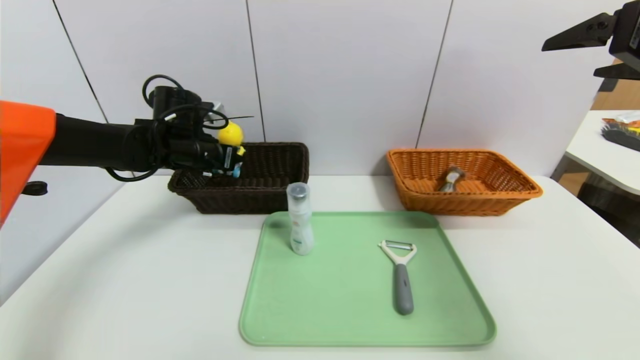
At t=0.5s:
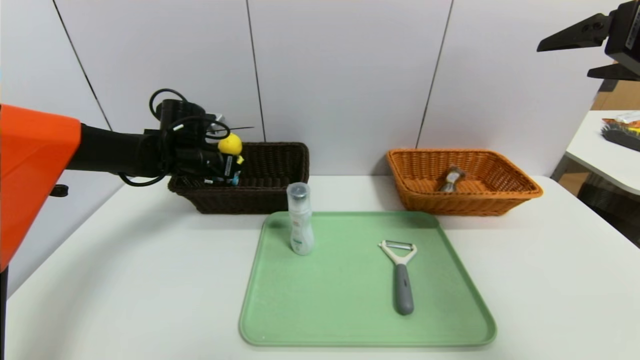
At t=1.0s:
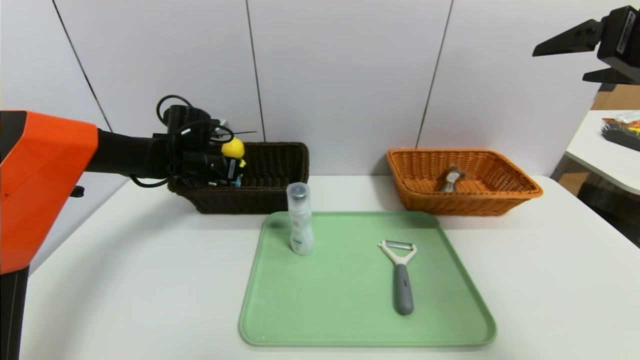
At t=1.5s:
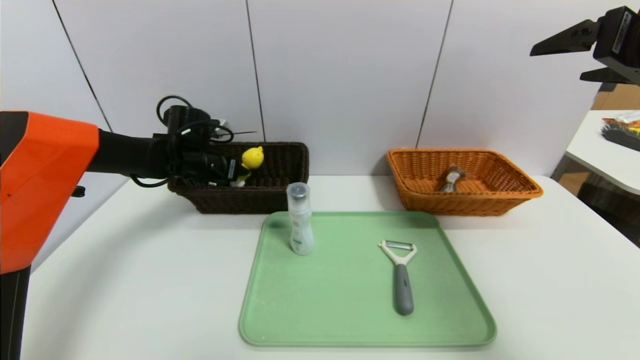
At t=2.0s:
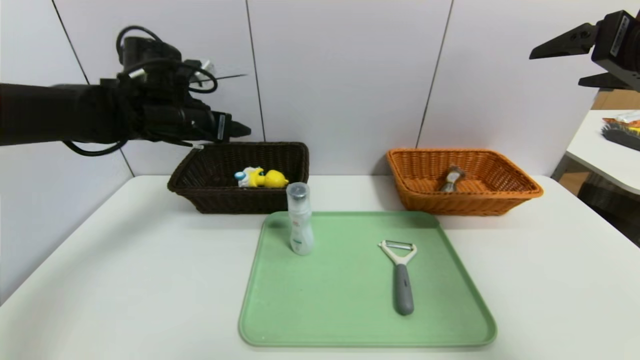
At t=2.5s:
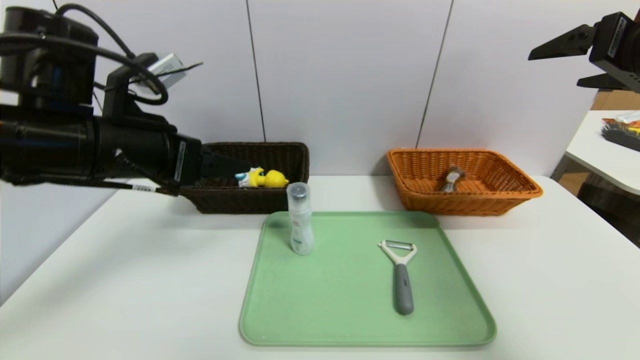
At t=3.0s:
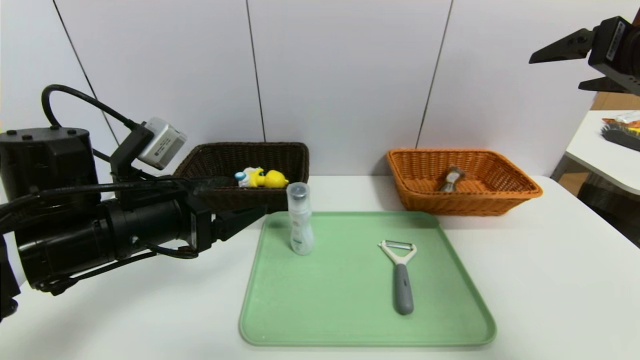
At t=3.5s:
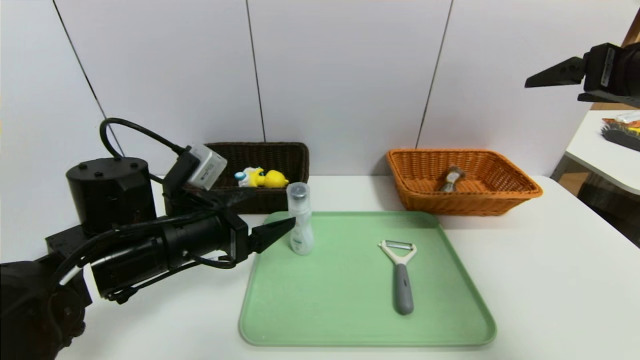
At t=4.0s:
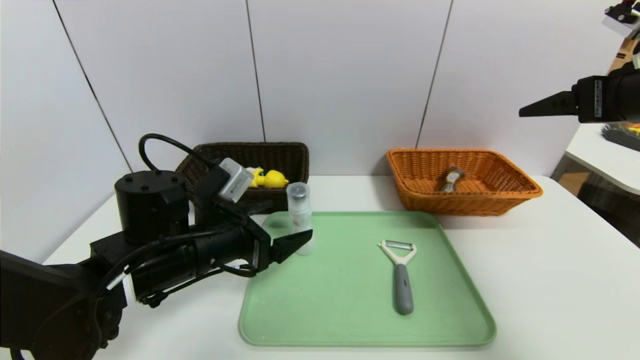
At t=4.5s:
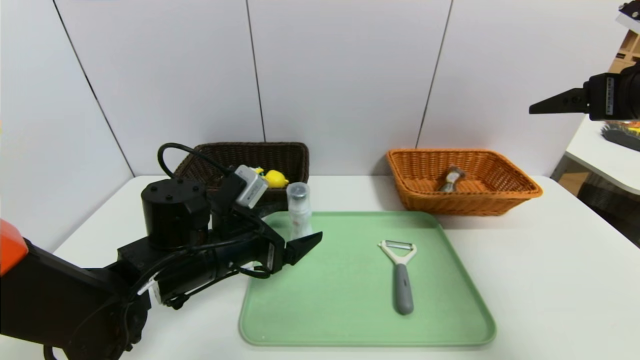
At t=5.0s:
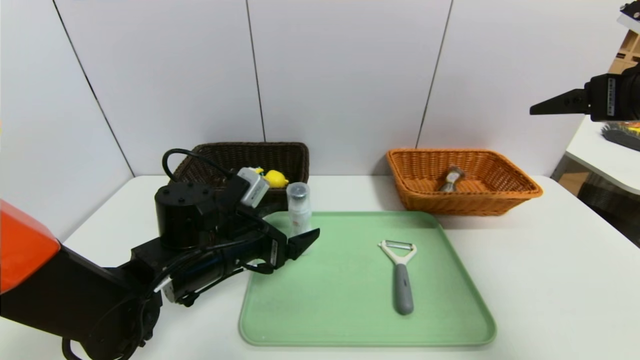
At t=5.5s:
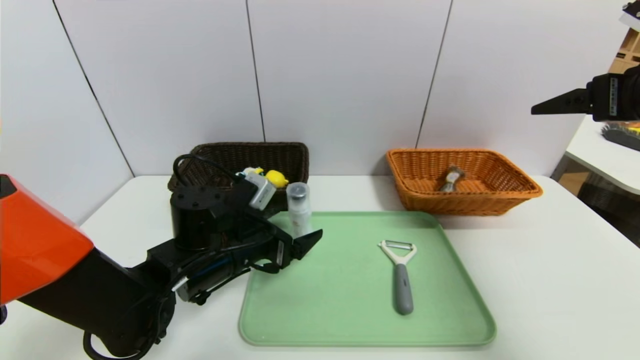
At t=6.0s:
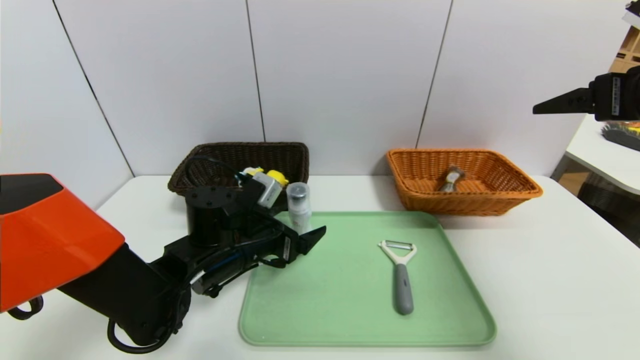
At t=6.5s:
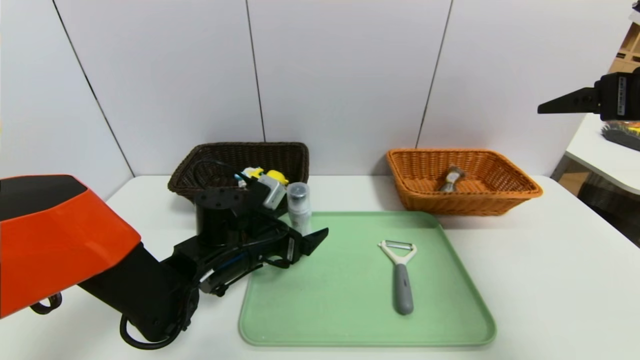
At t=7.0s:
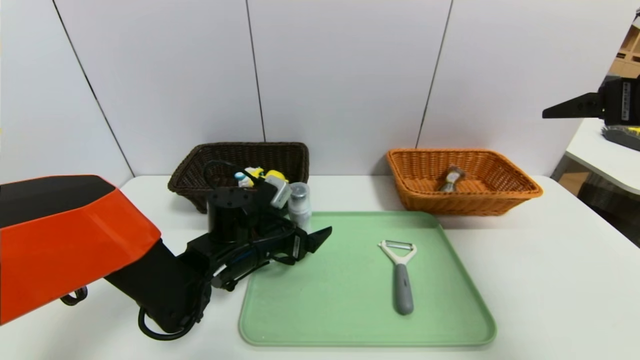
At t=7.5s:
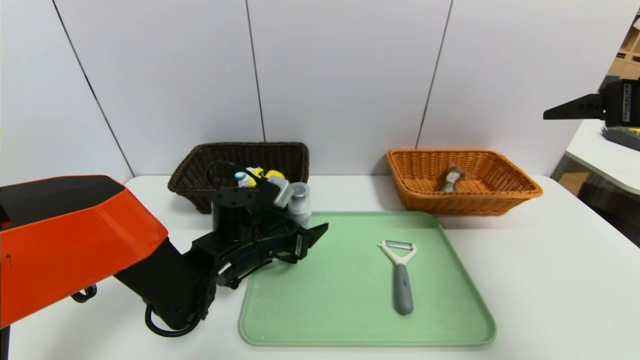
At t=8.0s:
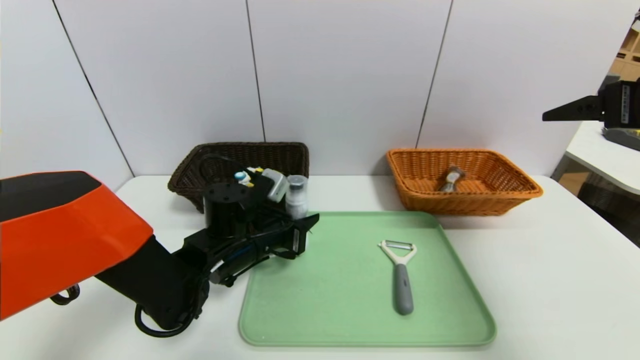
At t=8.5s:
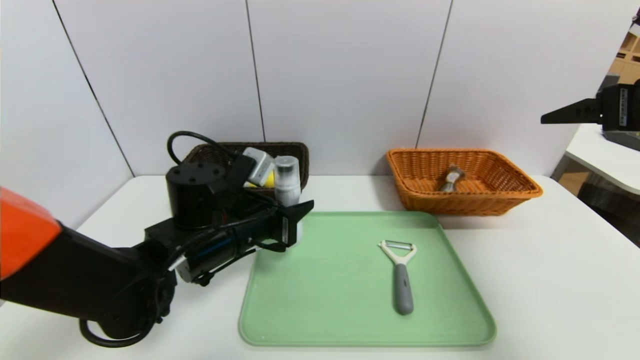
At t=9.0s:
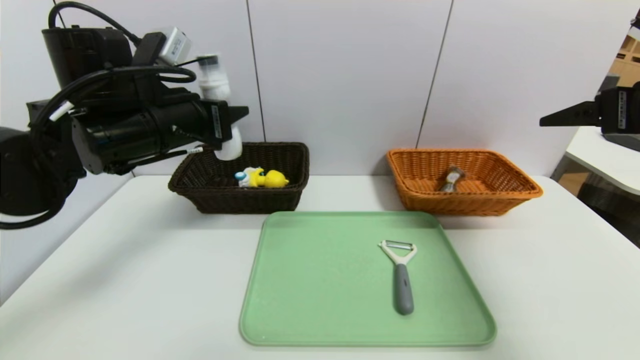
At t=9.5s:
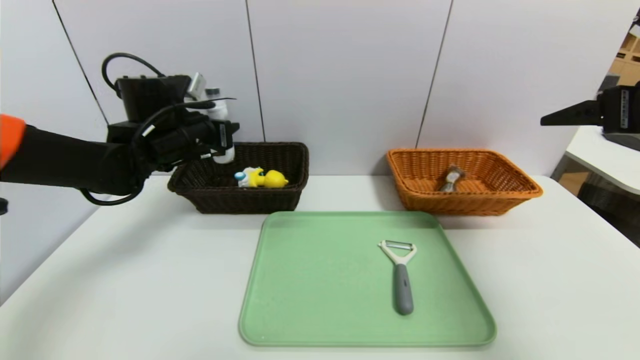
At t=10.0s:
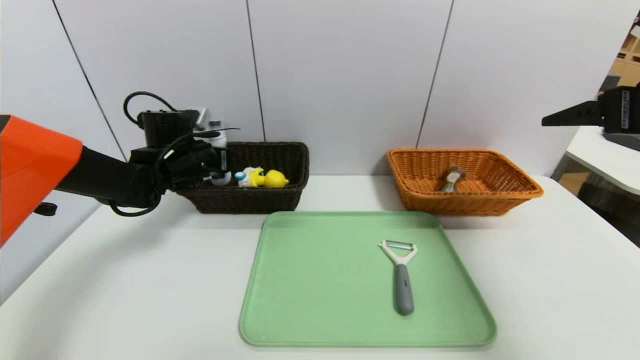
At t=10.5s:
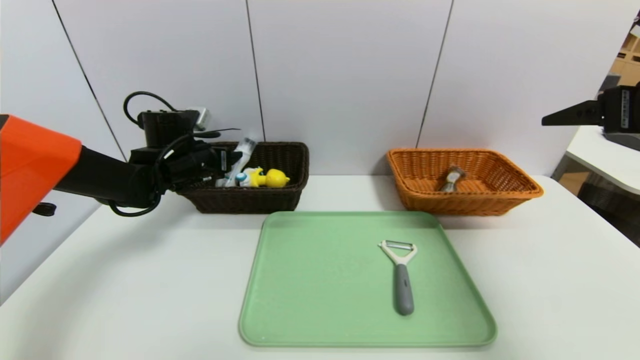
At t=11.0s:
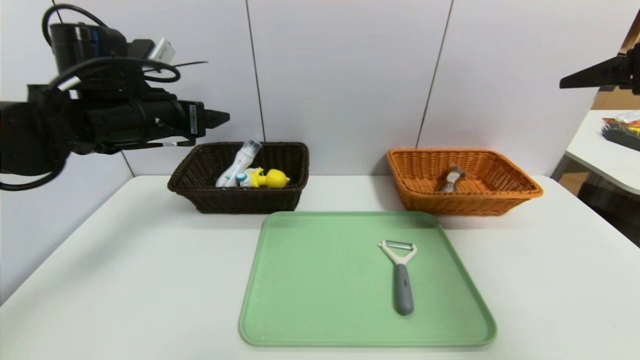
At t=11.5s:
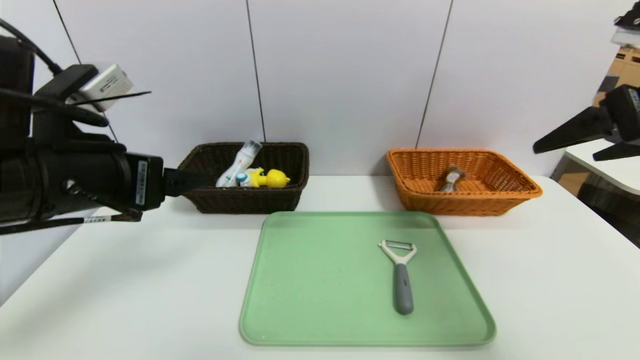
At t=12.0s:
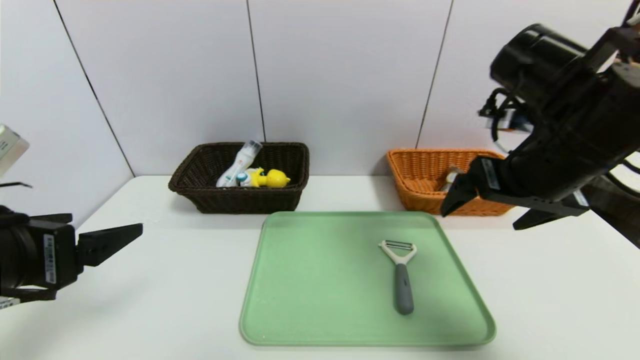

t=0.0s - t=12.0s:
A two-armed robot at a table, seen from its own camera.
Task of the whole recording: place the food in the right basket with the right gripper, and place the non food items in the left basket with the left gripper.
Step, t=2.0s - t=10.5s: Grasp the cleaning agent and put it in the left basket.
t=0.0s - t=2.0s: The left gripper heads upward, covering approximately 10 cm, and opens up.
t=2.0s - t=4.0s: The left gripper shifts about 20 cm backward, downward and to the right.
t=4.0s - t=6.0s: The left gripper ends up some 5 cm from where it was.
t=6.0s - t=8.0s: The left gripper closes.
t=8.0s - t=10.0s: The left gripper moves to the left and forward, some 20 cm, and reaches roughly 20 cm upward, then returns.
t=10.0s - t=12.0s: The right gripper is displaced to the left by some 15 cm. Meanwhile the left gripper goes some 30 cm backward, and opens.

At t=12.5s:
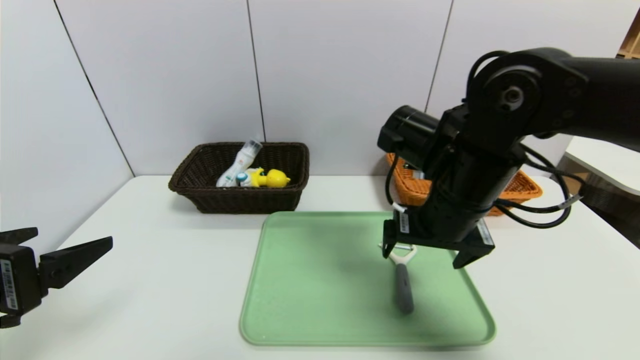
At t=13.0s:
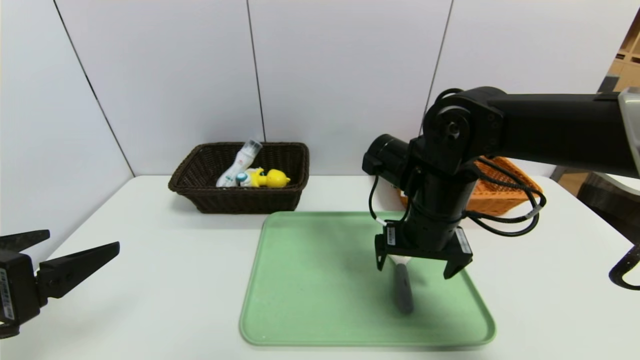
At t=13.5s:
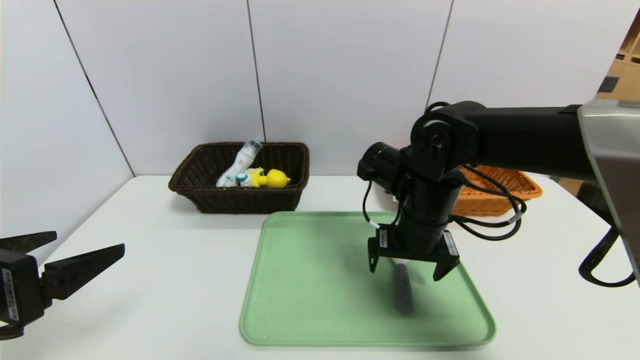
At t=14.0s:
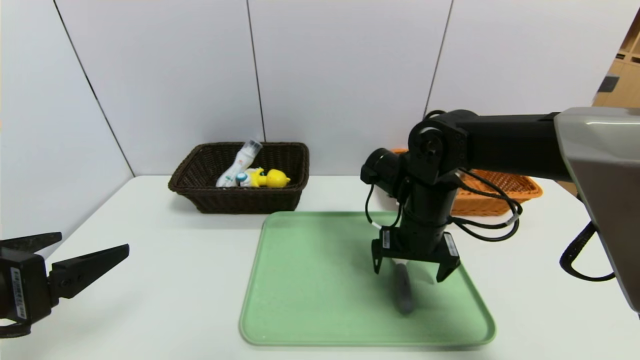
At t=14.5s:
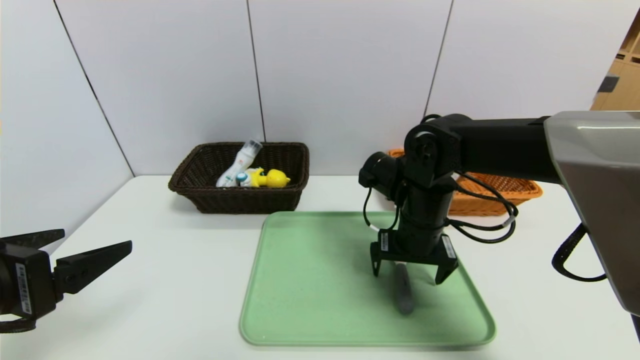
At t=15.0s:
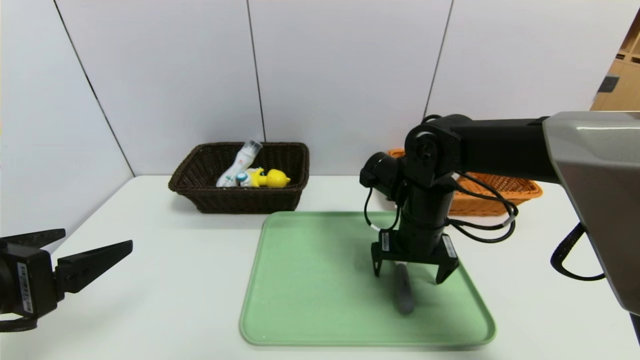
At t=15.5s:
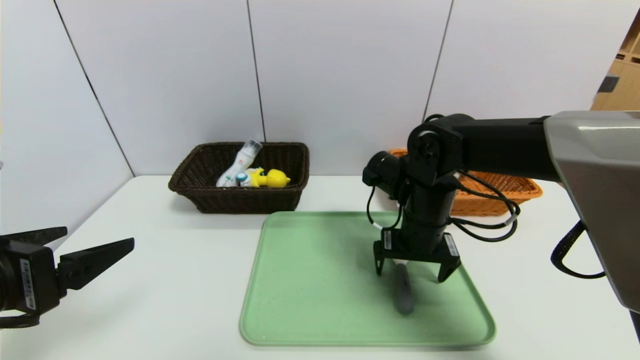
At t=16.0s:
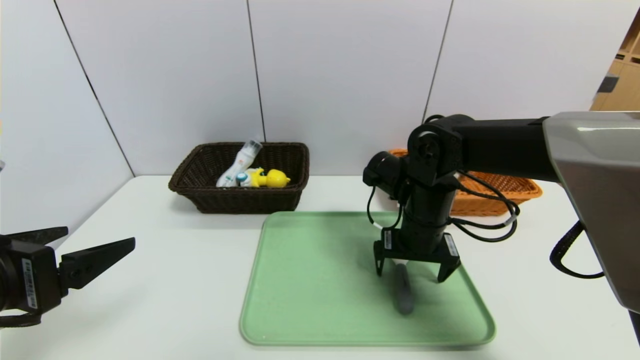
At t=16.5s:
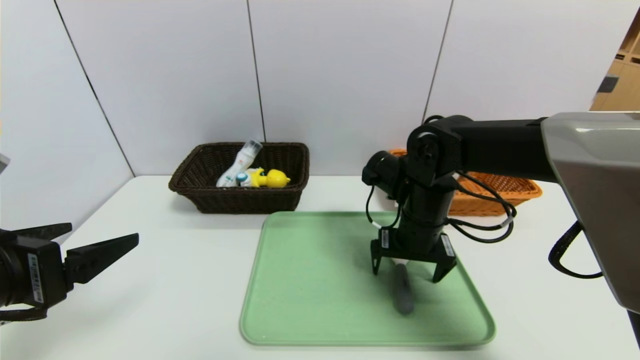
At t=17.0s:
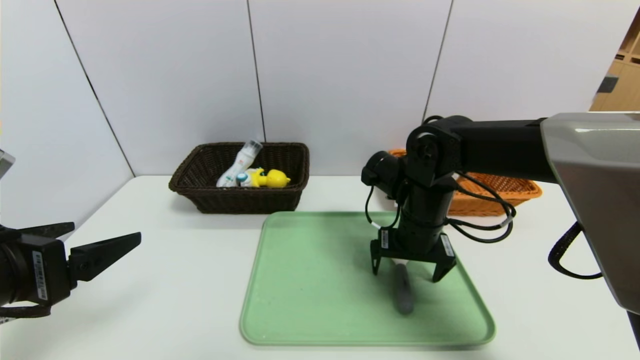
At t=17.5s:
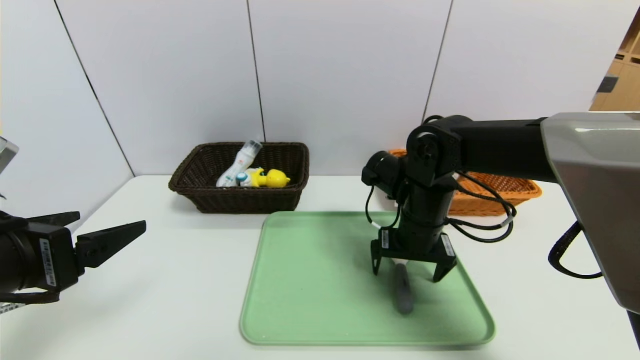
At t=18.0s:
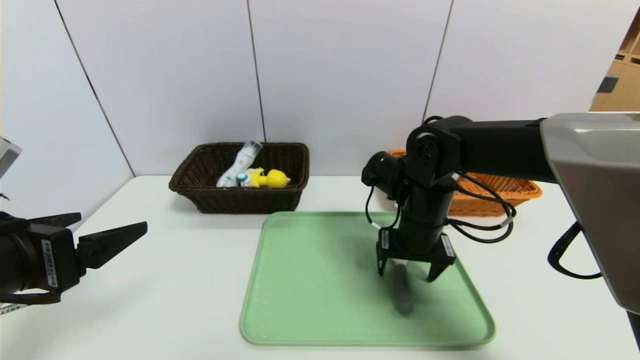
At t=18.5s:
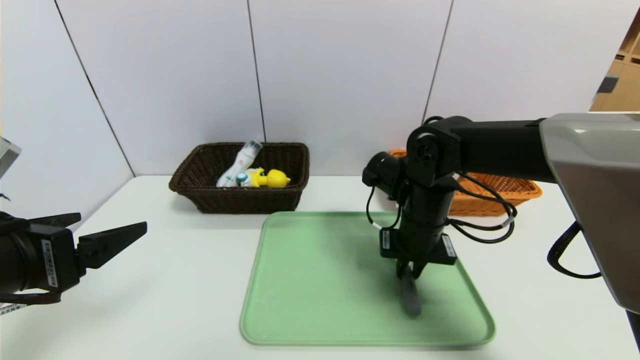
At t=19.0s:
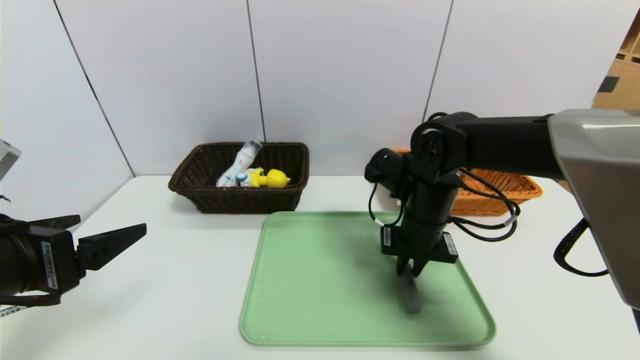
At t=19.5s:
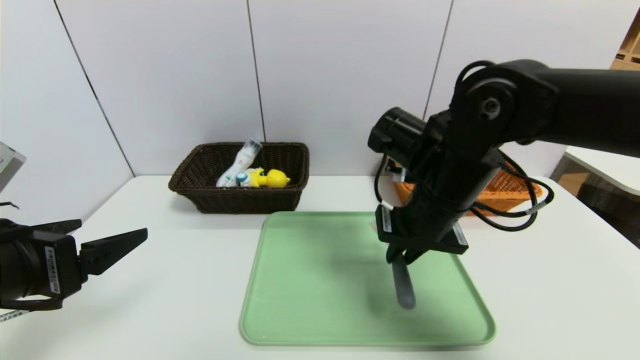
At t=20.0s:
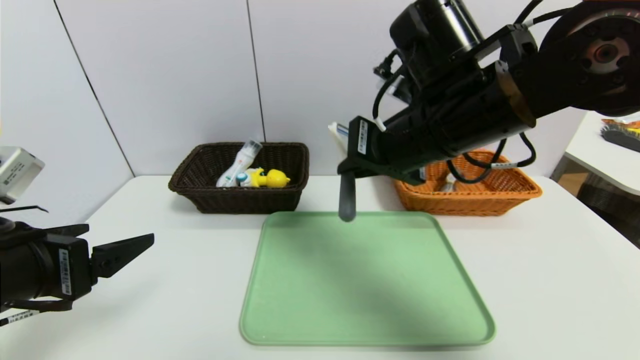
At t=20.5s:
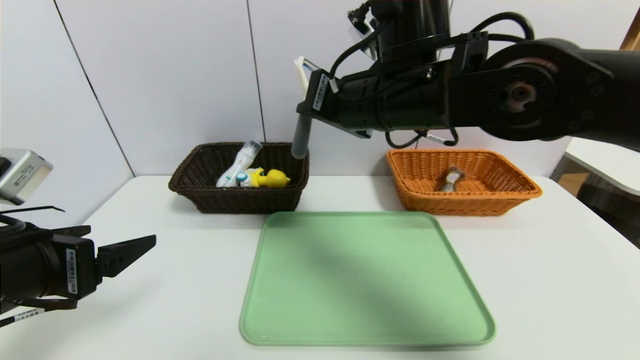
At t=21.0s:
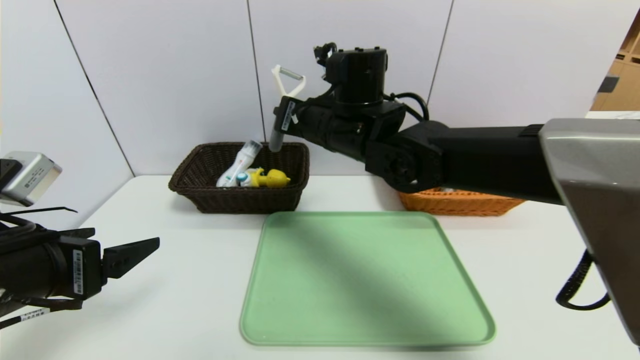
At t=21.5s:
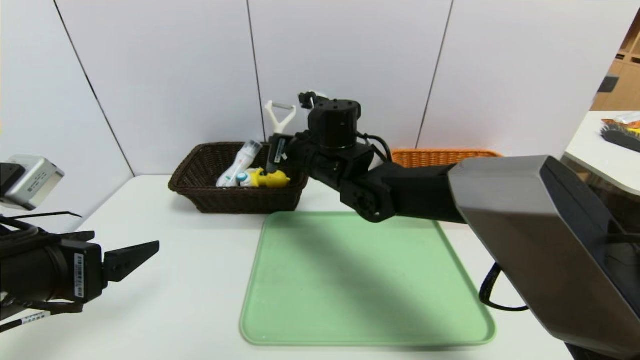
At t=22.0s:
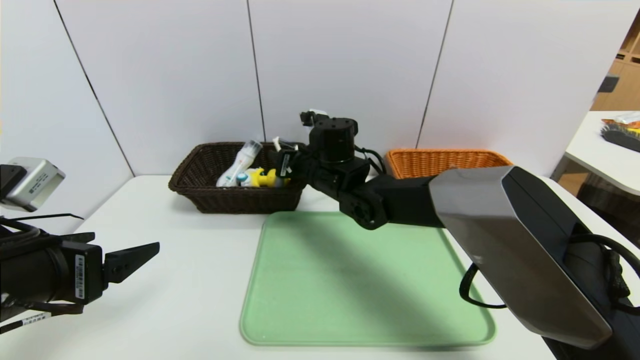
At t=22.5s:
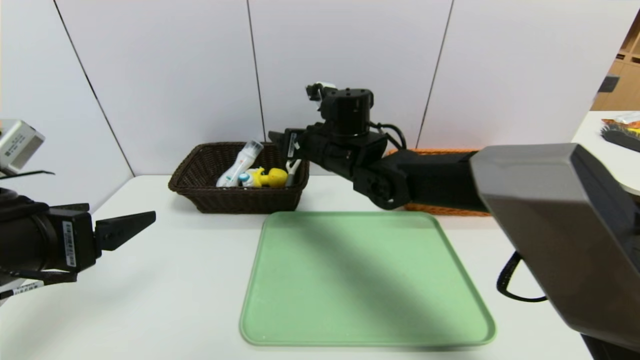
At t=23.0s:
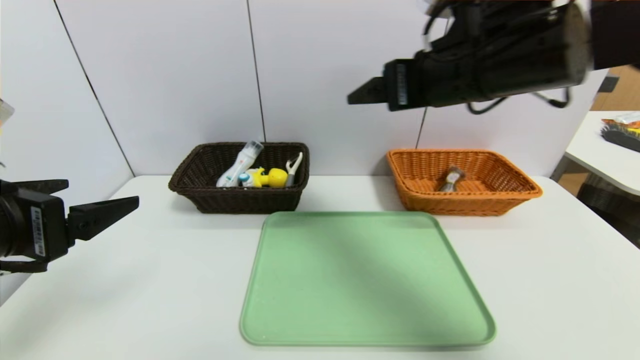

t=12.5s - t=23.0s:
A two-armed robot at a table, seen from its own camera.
Task of the whole recording: place the food in the right basket with the right gripper, and place the non food items in the left basket with the left gripper.
t=12.5s - t=14.5s: The right gripper heads downward, covering about 5 cm.
t=14.5s - t=16.5s: The two grippers keep their place.
t=16.5s - t=19.0s: The right gripper closes its fingers.
t=19.0s - t=21.0s: The right gripper is displaced to the left and upward by some 15 cm.
t=21.0s - t=23.0s: The right gripper moves to the right, upward and backward, some 20 cm, and opens.
